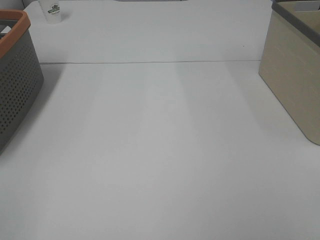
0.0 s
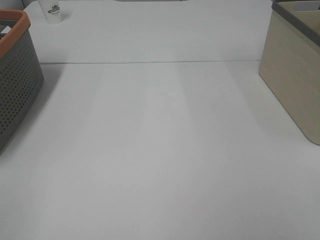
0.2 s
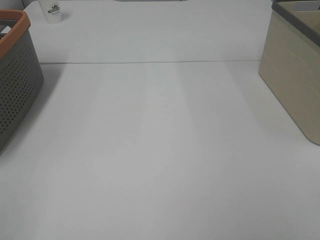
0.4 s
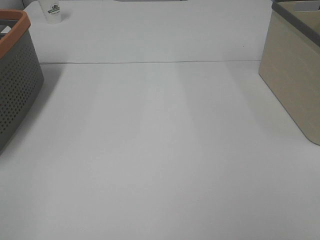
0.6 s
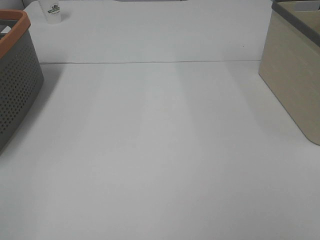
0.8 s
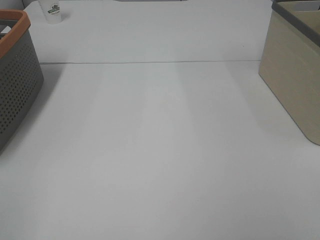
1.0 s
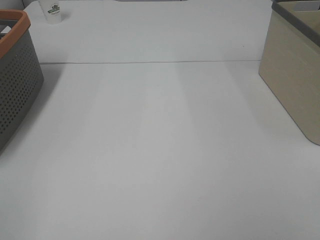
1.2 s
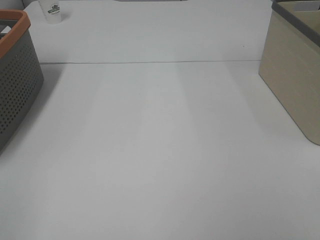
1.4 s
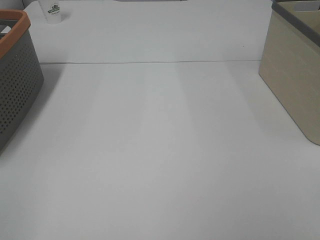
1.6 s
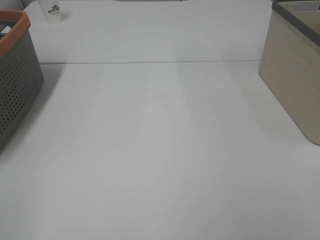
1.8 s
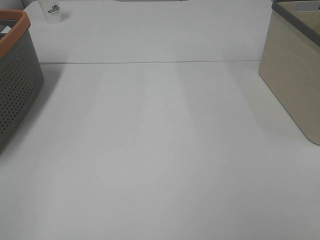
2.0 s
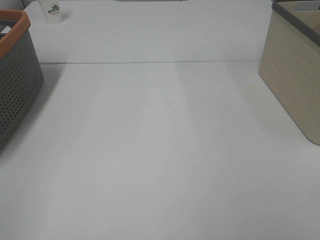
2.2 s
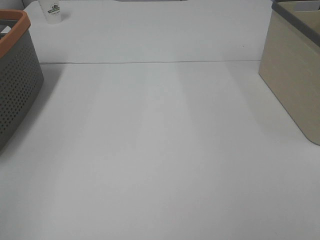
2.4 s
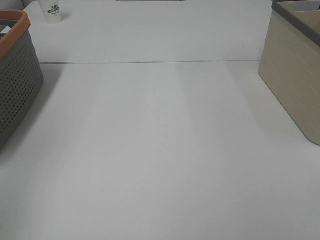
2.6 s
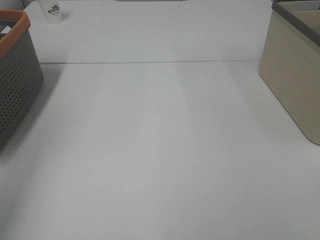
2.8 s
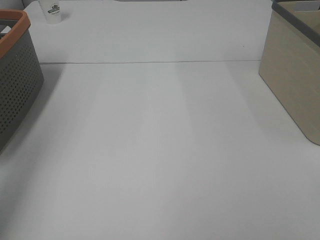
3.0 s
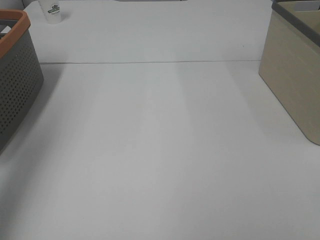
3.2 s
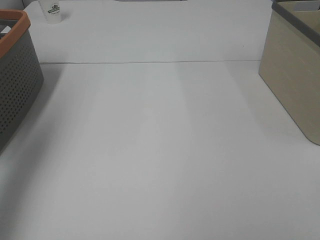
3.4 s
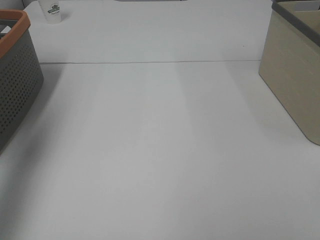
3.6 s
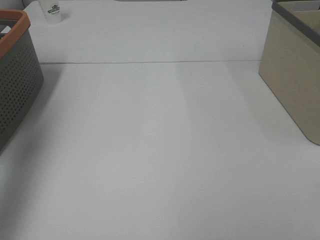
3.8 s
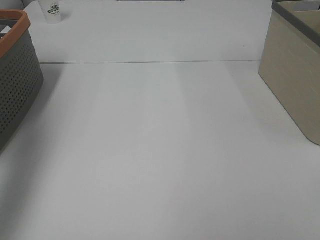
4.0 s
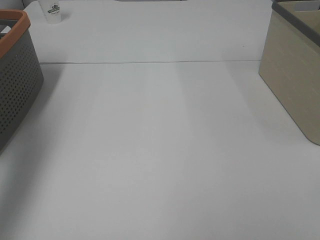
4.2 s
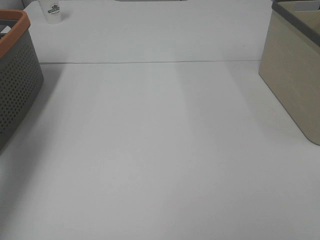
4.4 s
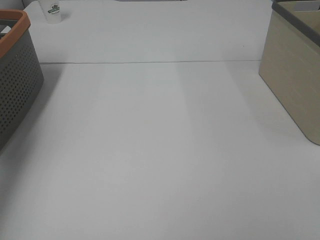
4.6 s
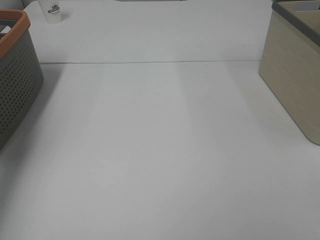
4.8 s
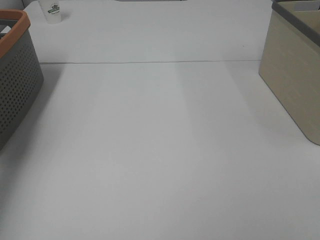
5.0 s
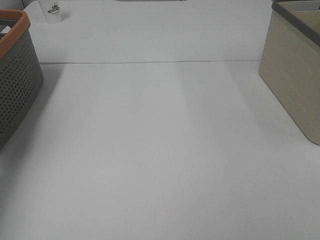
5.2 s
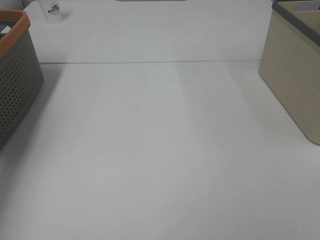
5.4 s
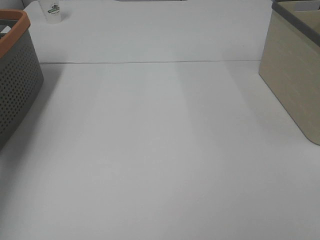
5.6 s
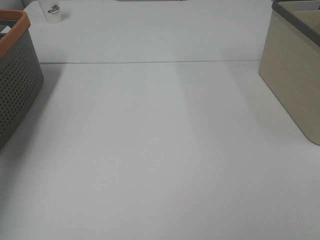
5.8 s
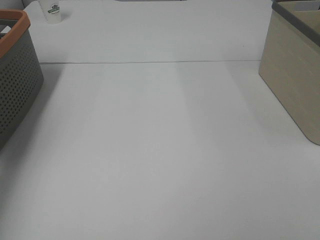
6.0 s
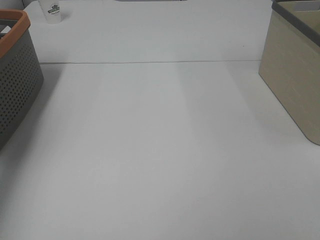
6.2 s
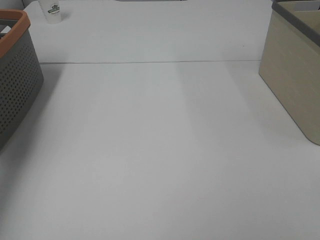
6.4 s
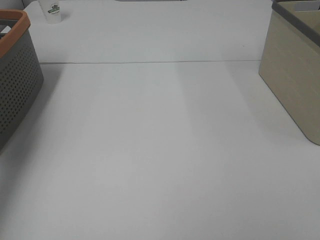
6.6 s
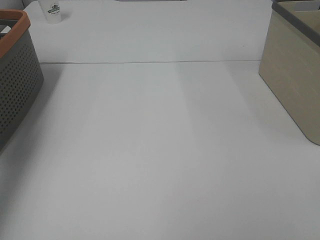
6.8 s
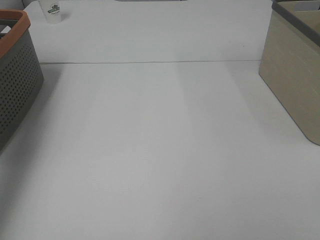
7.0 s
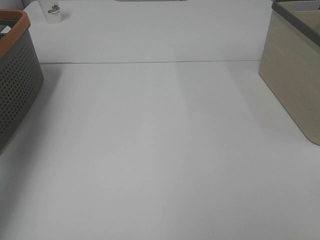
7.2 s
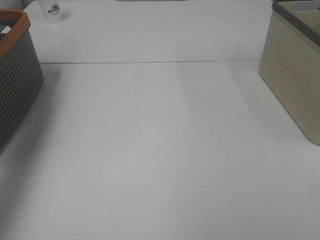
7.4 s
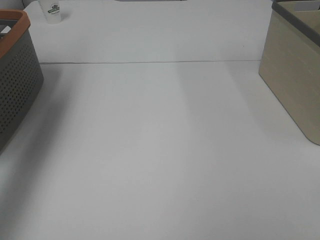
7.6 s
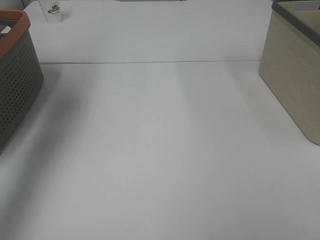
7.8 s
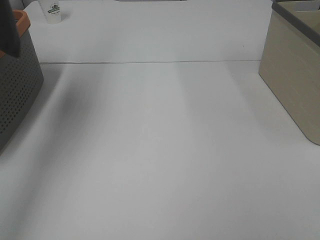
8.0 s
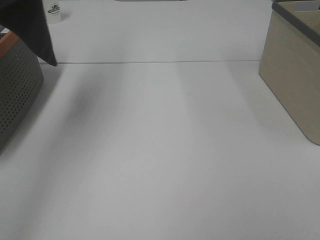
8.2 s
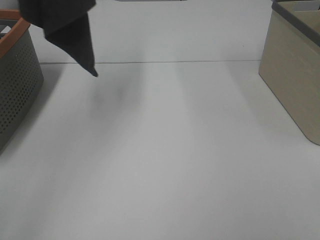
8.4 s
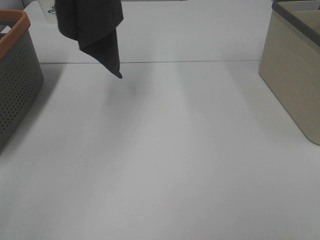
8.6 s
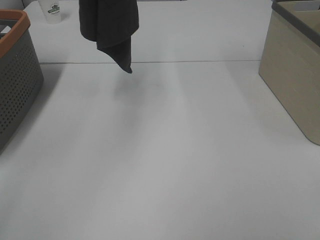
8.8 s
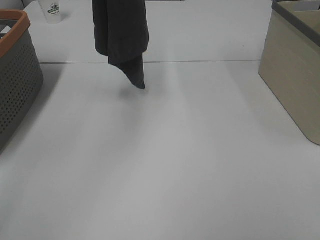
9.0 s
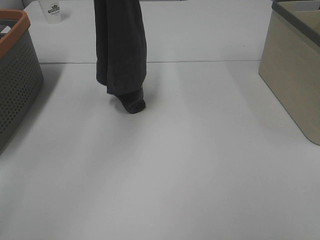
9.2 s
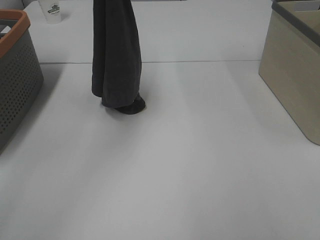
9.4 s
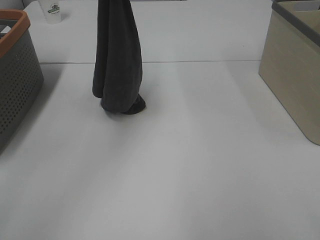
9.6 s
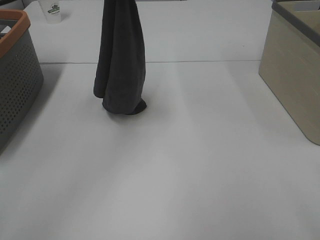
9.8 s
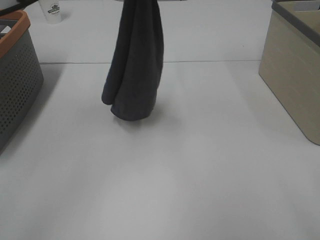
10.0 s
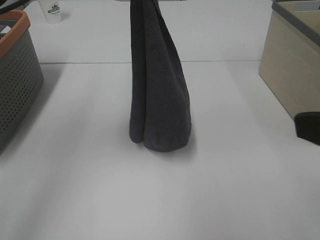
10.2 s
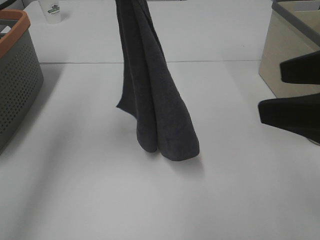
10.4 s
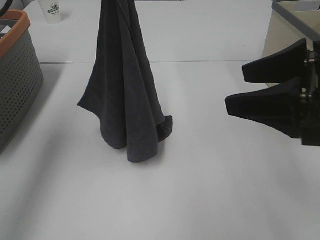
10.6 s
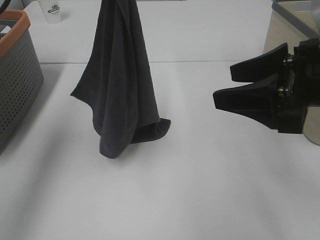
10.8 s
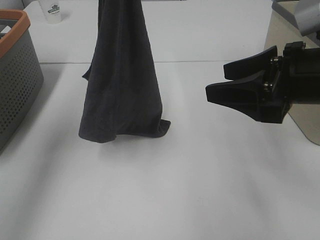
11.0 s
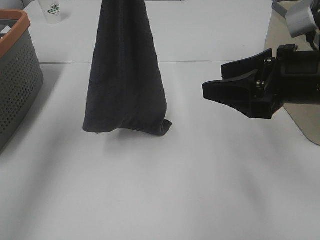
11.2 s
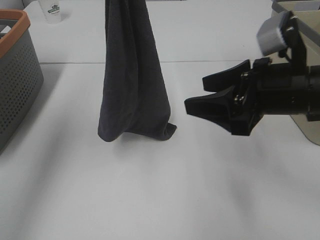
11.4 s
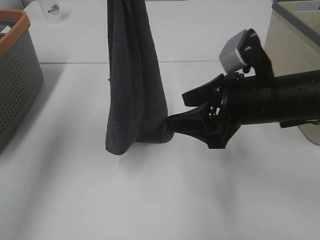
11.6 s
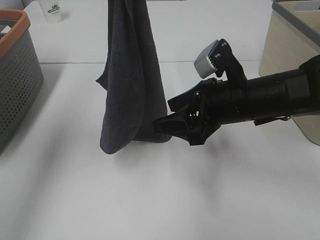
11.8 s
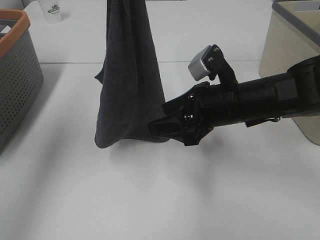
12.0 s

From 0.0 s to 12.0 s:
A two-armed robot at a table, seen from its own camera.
Task of the whole recording: Remove the towel and place it.
From 0.0 s to 1.6 s: Neither gripper changes place.
From 1.6 s to 3.0 s: The left gripper shifts approximately 20 cm forward and upward.
From 3.0 s to 4.4 s: The left gripper is displaced forward and downward by roughly 20 cm.
From 4.4 s to 6.0 s: The left gripper moves downward and forward, roughly 10 cm, and closes up.
From 6.0 s to 7.6 s: The left gripper goes some 30 cm upward.
From 7.6 s to 9.0 s: The left gripper travels to the right by roughly 20 cm.
From 9.0 s to 10.4 s: The left gripper shifts about 10 cm downward and backward; the right gripper moves forward and to the left, approximately 15 cm.
From 10.4 s to 12.0 s: The right gripper shifts about 25 cm downward, forward and to the left.

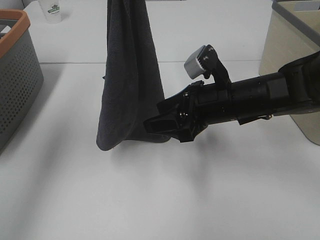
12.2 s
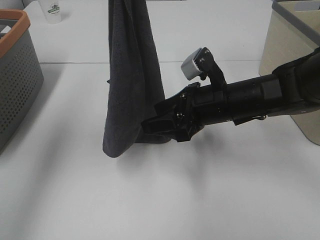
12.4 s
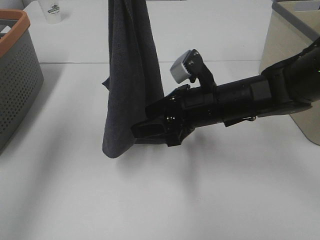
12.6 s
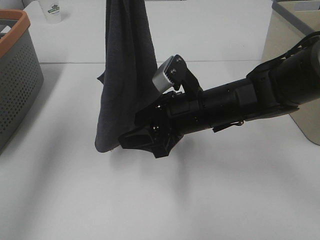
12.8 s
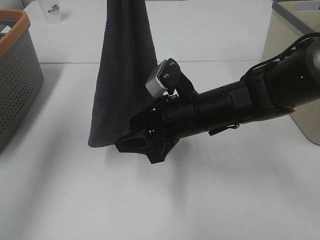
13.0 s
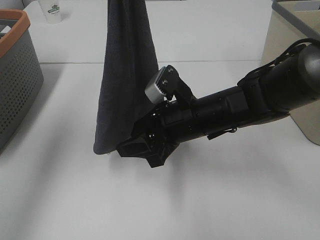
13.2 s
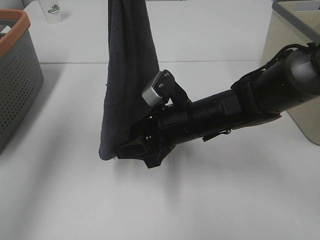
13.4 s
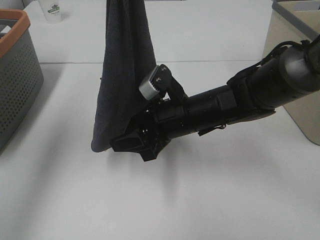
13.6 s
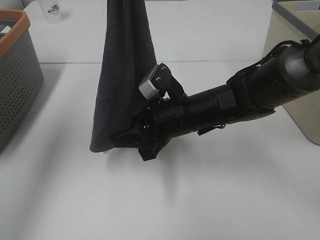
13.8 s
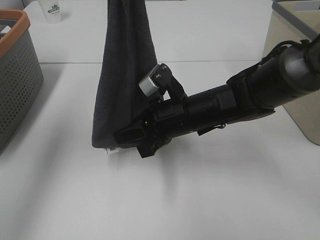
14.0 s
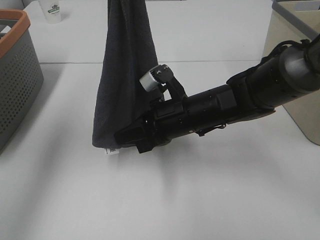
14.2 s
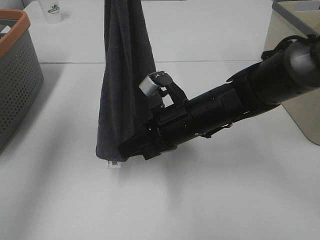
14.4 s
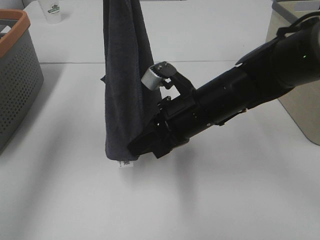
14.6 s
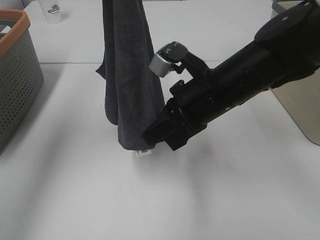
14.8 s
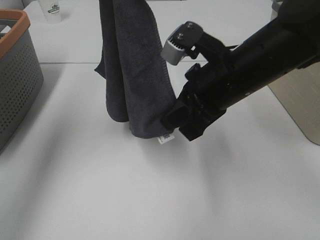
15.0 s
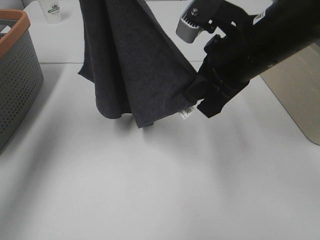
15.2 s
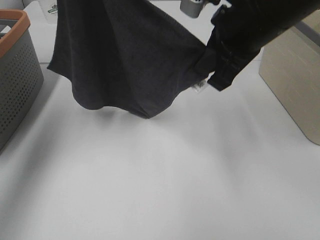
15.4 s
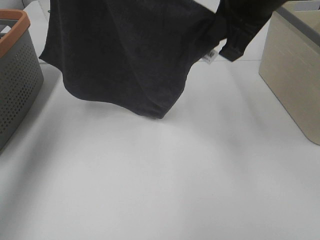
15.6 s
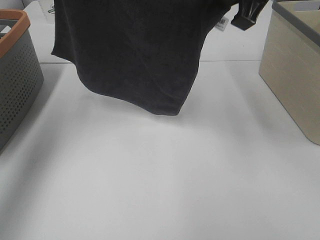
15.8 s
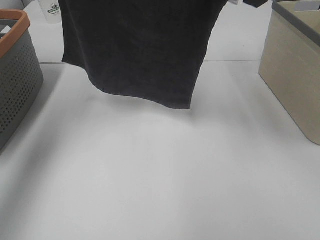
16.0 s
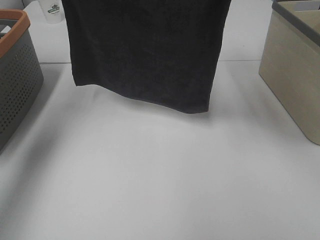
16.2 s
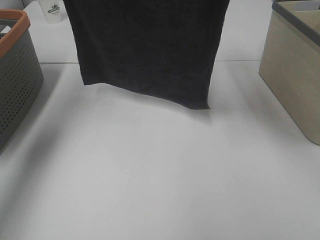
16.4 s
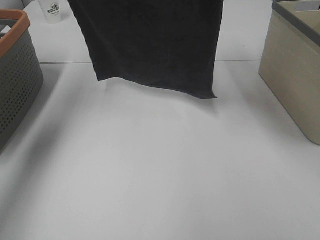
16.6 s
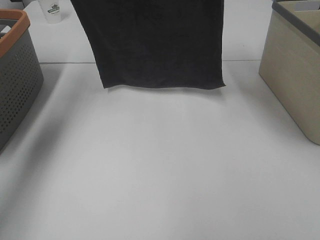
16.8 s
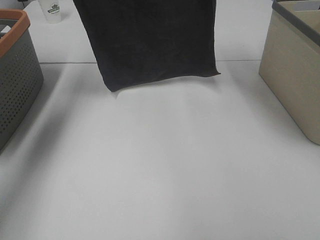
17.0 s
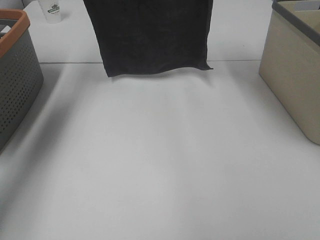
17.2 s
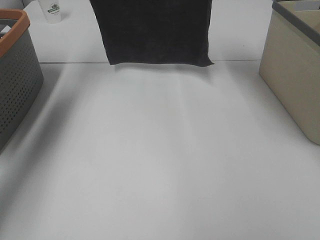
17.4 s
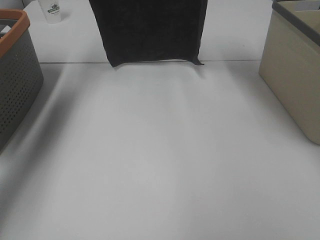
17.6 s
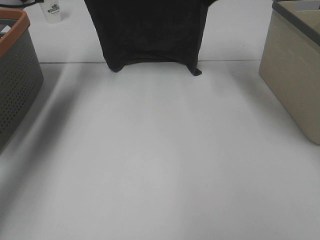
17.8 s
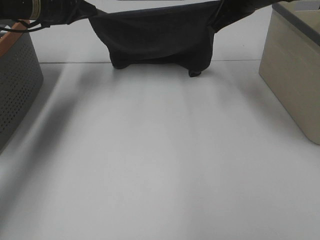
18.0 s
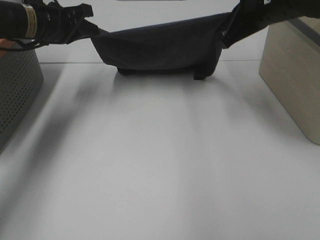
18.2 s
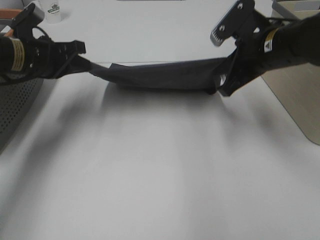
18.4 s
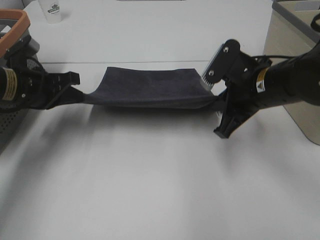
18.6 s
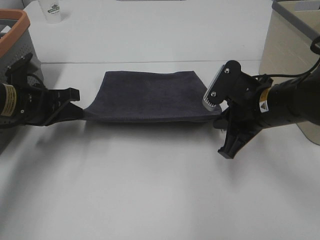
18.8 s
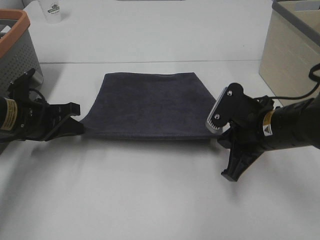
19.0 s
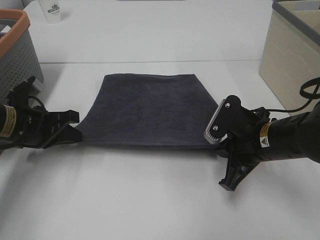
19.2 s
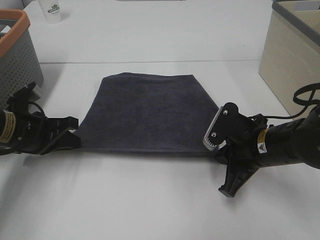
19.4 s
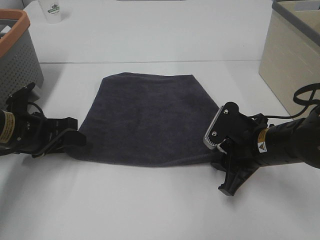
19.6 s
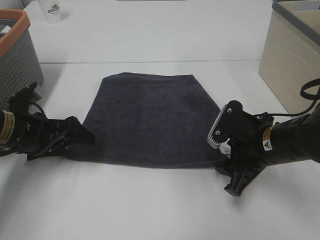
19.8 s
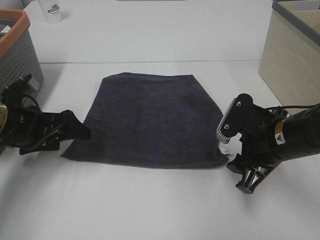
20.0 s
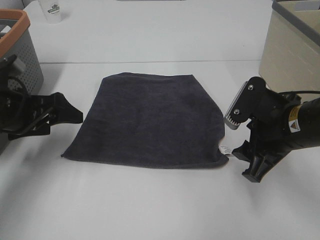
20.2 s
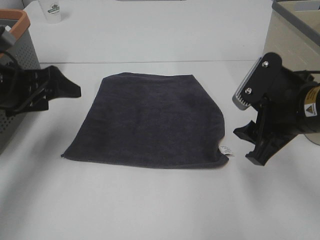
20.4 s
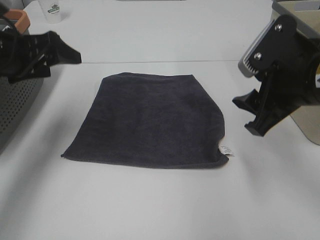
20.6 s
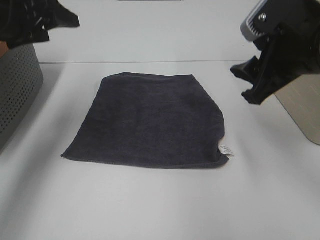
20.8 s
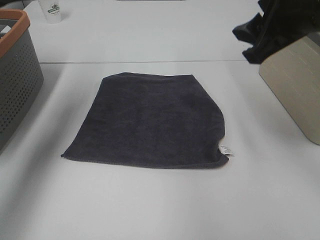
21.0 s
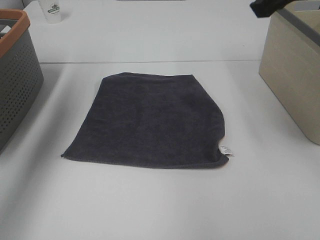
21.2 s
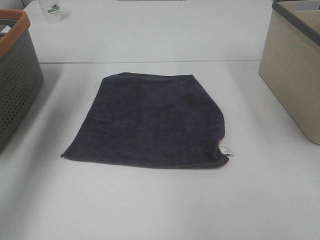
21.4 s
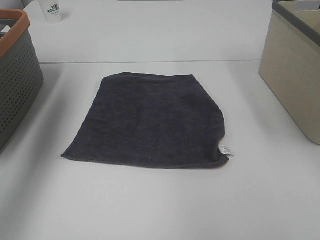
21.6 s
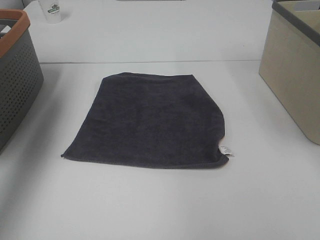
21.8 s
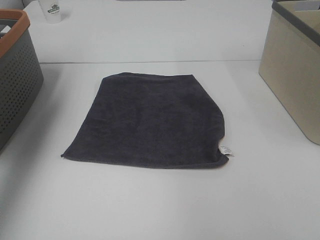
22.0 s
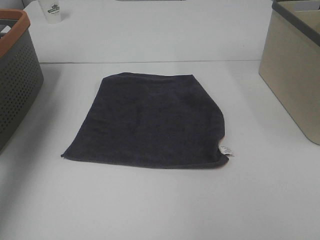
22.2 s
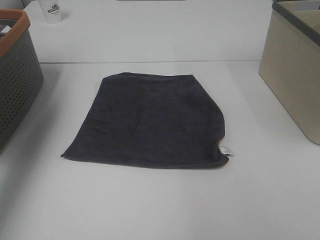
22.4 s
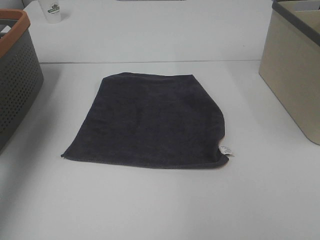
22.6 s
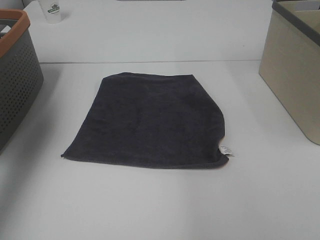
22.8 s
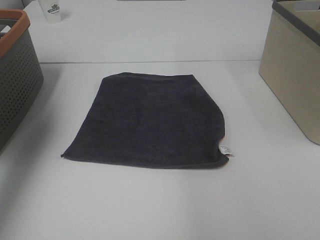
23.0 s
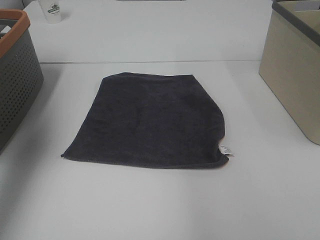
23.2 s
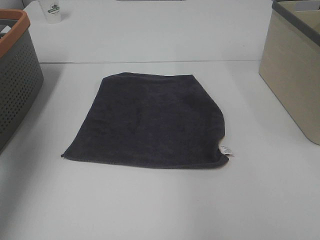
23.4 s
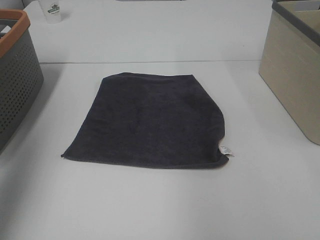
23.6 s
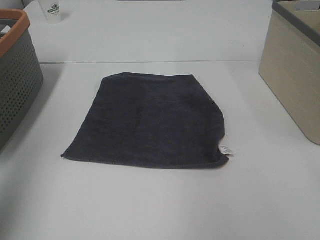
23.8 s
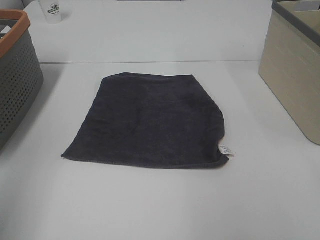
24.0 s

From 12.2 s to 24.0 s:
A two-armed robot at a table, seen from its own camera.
Task of the whole recording: Remove the towel and place it.
Step, from 13.4 s to 15.8 s: Left hand: spread the grey towel flat on the table.
Step, from 13.4 s to 15.8 s: Right hand: spread the grey towel flat on the table.
From 12.2 s to 13.6 s: The right gripper is displaced to the left by roughly 5 cm.
From 13.6 s to 15.2 s: The right gripper travels upward by about 15 cm, and closes its fingers; the left gripper changes place by approximately 5 cm.
From 15.2 s to 16.6 s: The right gripper is displaced upward and forward by some 15 cm. Meanwhile the left gripper shifts roughly 10 cm forward and downward.
From 16.6 s to 18.2 s: Both grippers move downward, about 15 cm.
From 18.2 s to 19.6 s: The left gripper is displaced backward and downward by roughly 20 cm, and opens up; the right gripper moves downward and backward, roughly 20 cm, and opens up.
From 19.6 s to 21.0 s: Both grippers travel together upward, roughly 20 cm.
From 21.0 s to 22.6 s: The right gripper moves upward and forward, some 15 cm; the left gripper travels to the left and upward by roughly 15 cm.
From 22.6 s to 24.0 s: The left gripper is displaced backward by roughly 25 cm.
